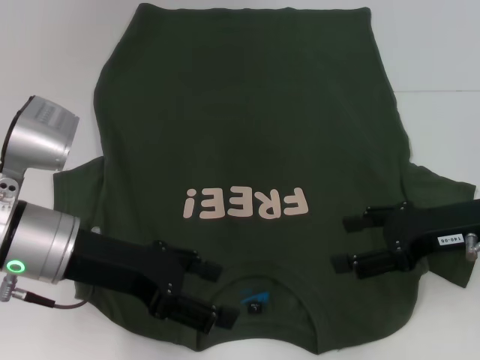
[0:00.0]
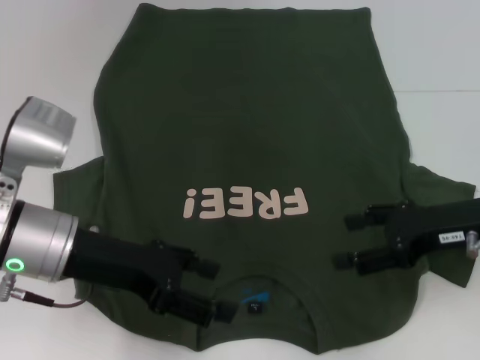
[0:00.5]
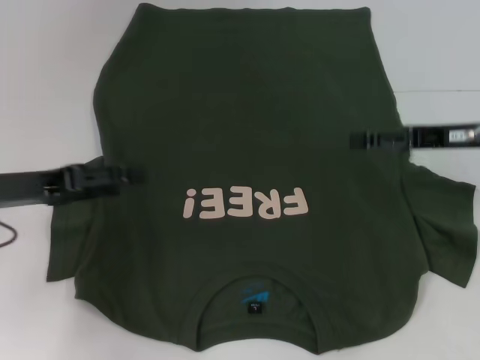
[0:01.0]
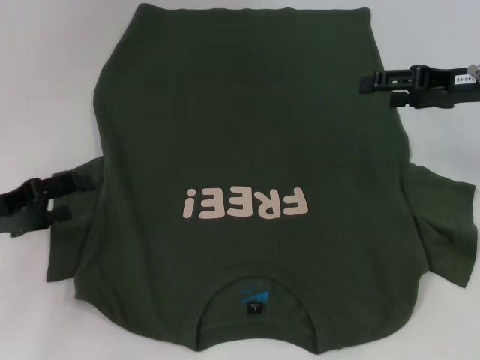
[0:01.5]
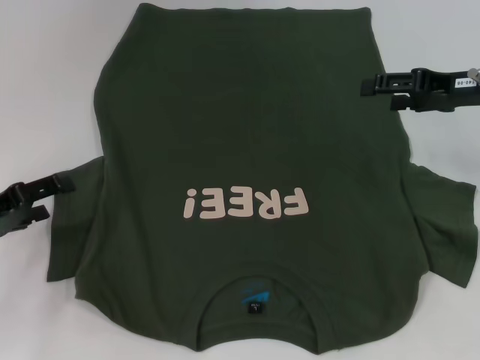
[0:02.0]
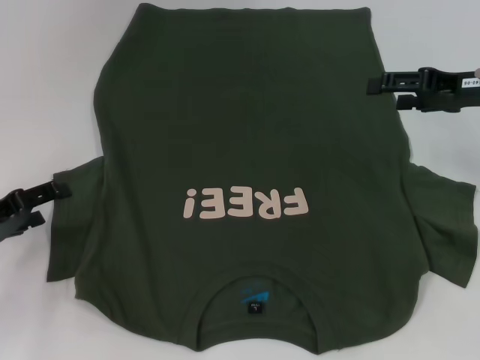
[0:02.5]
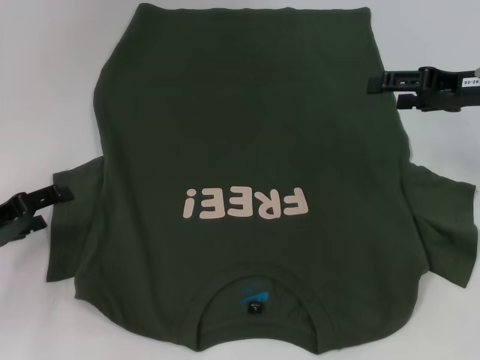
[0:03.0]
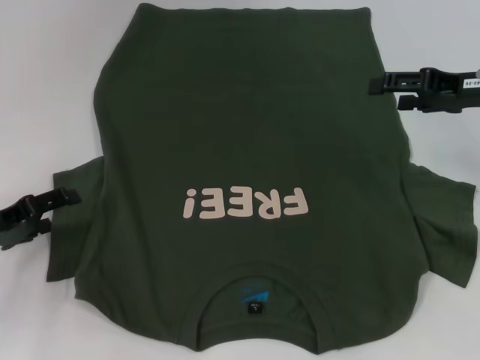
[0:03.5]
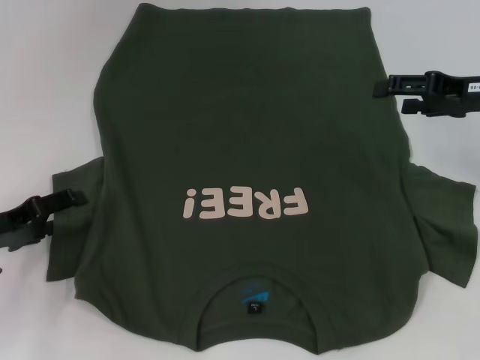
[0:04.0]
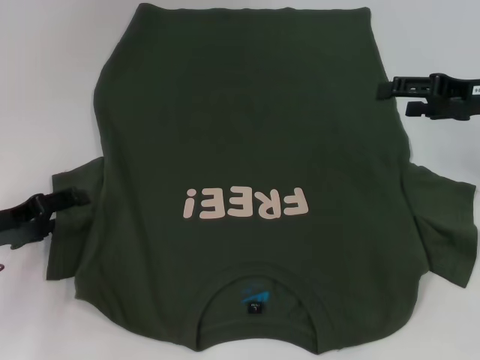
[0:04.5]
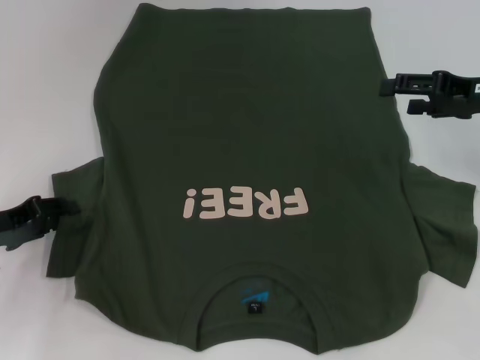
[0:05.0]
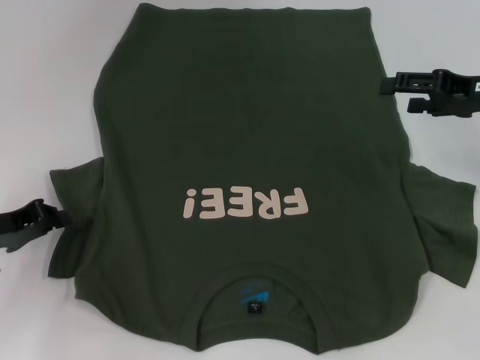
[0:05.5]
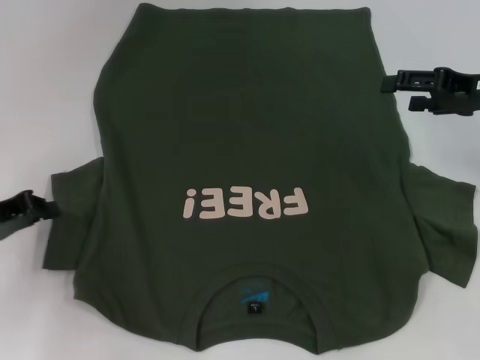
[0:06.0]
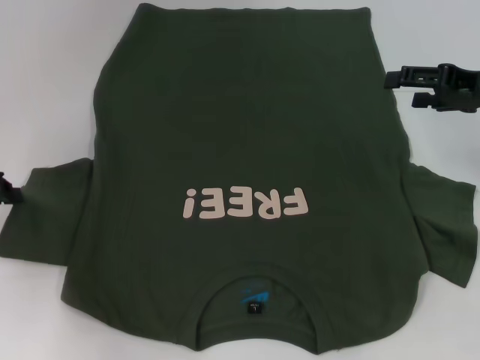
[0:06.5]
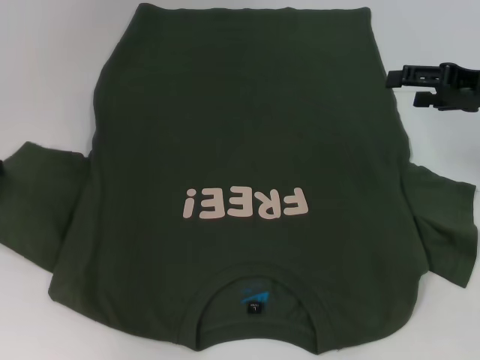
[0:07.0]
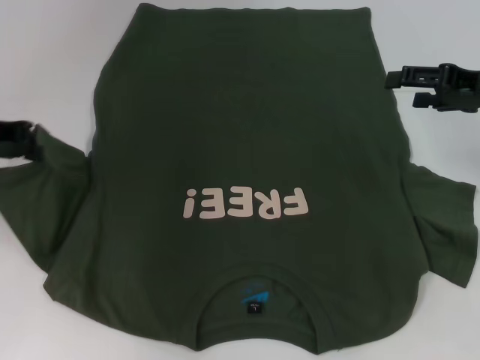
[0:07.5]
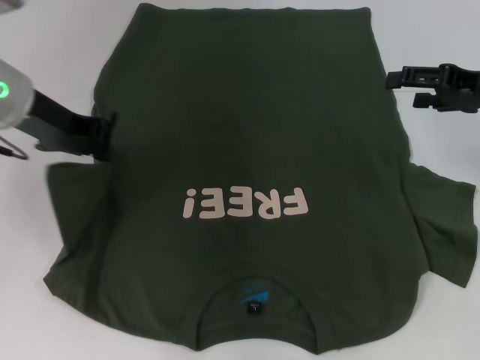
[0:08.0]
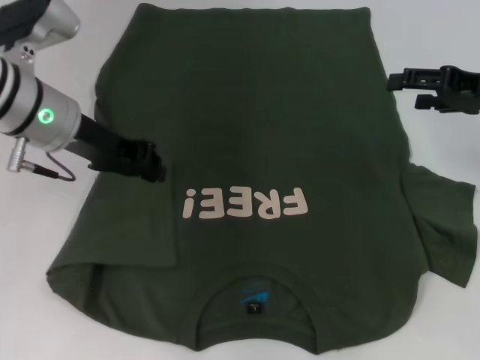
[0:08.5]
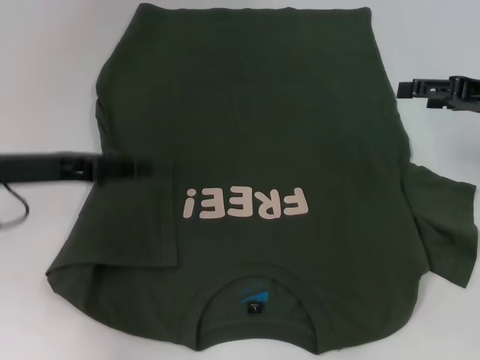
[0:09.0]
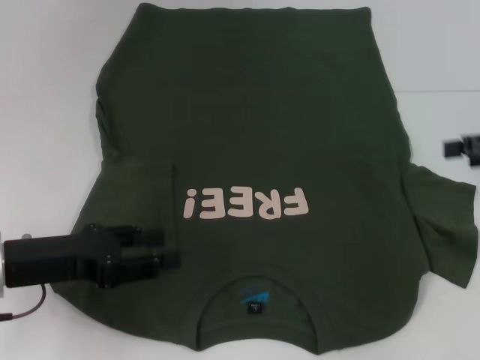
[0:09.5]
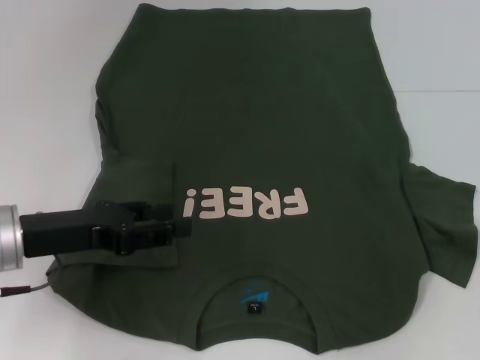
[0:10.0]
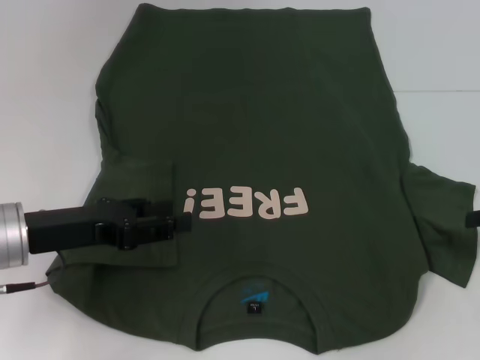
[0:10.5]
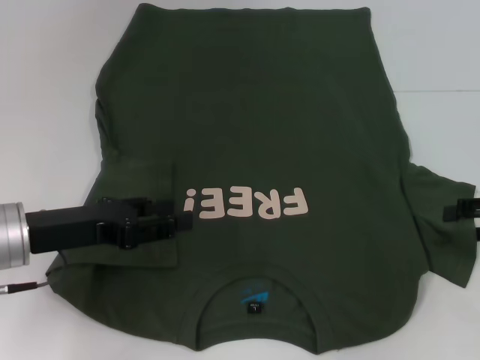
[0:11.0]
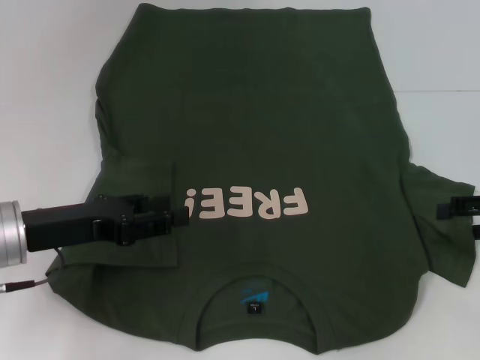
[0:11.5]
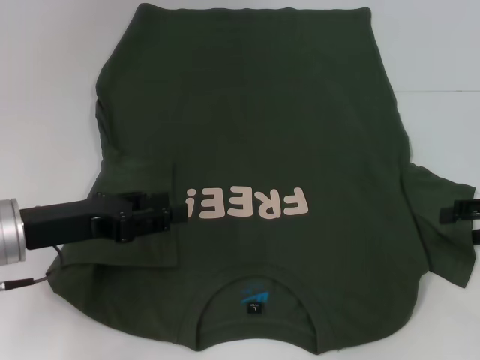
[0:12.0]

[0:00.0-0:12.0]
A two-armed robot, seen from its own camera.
Step, 0:00.0 to 0:08.5: Fold the bottom left sleeve with your left hand.
0:00.0 to 0:02.0: The right gripper shifts approximately 10 cm forward and upward. Meanwhile the left gripper shifts some 15 cm to the left.
0:02.0 to 0:04.0: The grippers stay close to where they were, moving slightly.
0:04.0 to 0:06.0: The left gripper closes its fingers.
0:06.0 to 0:08.0: The left gripper goes roughly 20 cm upward, to the right and forward.
0:08.0 to 0:10.0: The right gripper is displaced to the right and backward by roughly 10 cm, while the left gripper moves backward and downward, approximately 15 cm, and opens.
0:10.0 to 0:12.0: The right gripper changes place by about 5 cm.

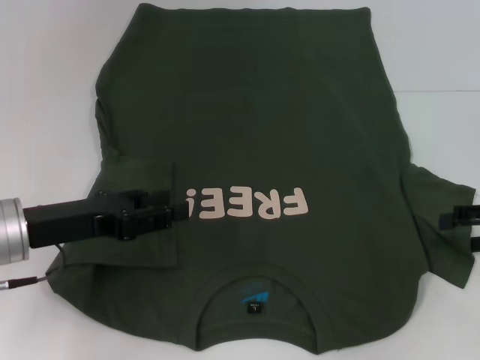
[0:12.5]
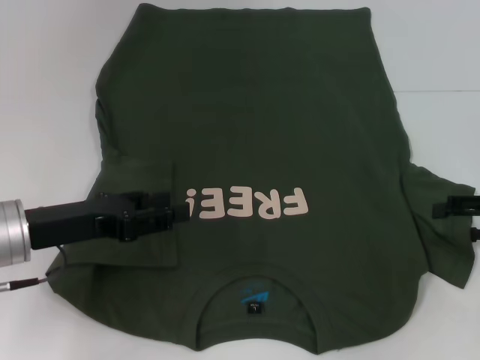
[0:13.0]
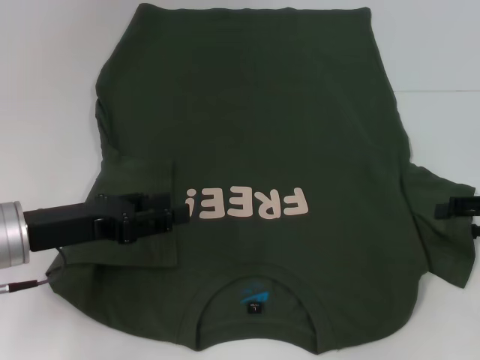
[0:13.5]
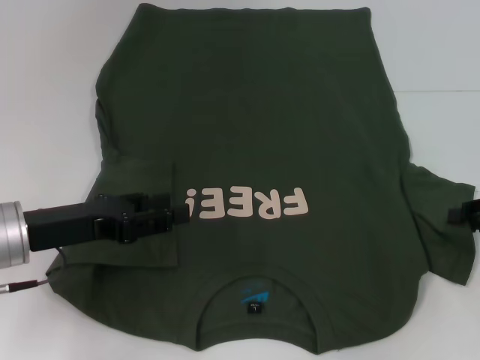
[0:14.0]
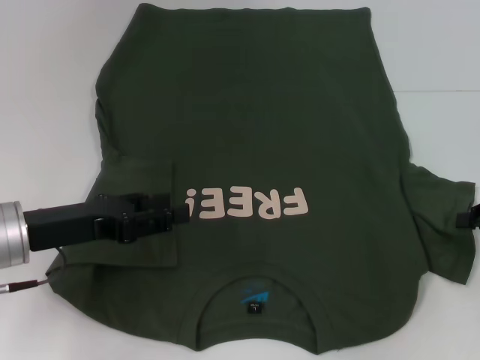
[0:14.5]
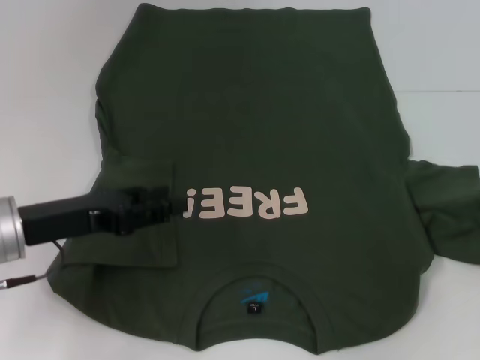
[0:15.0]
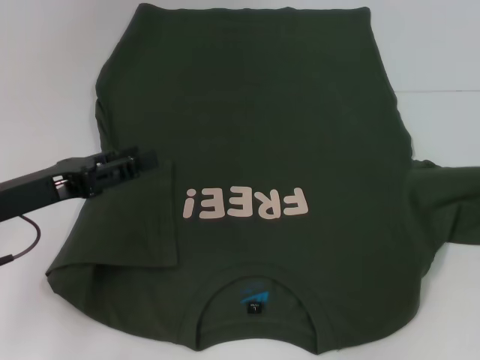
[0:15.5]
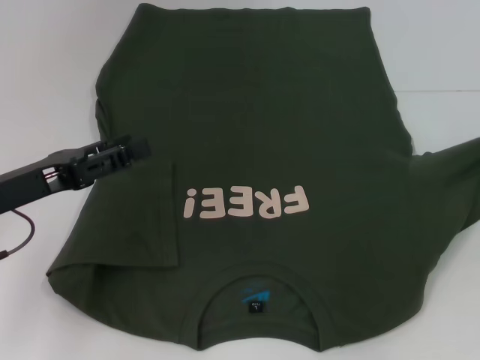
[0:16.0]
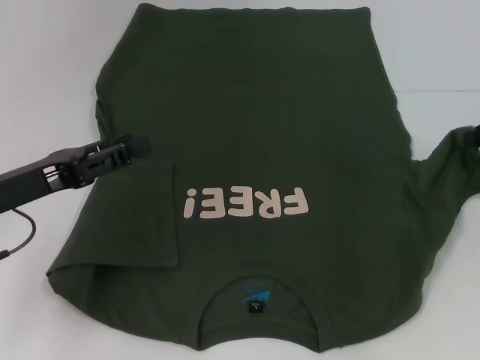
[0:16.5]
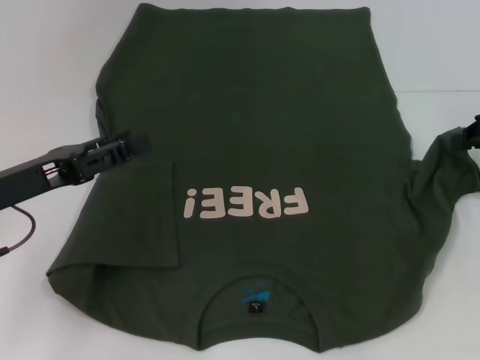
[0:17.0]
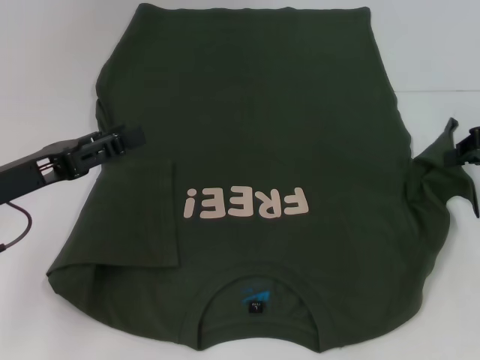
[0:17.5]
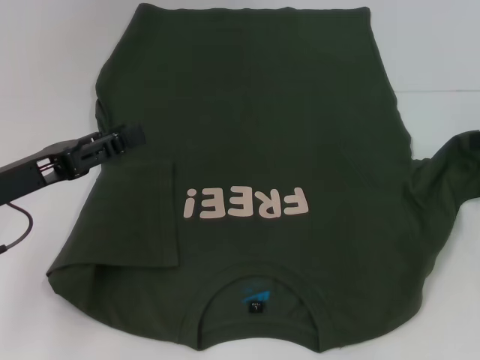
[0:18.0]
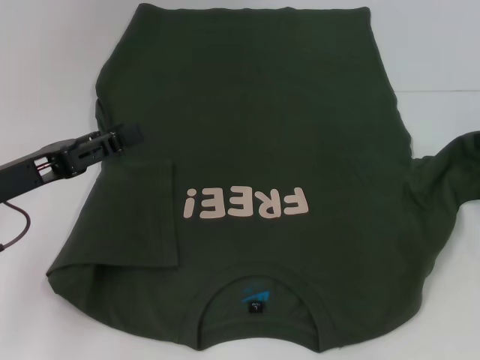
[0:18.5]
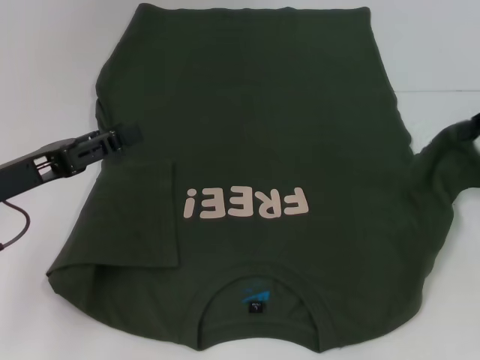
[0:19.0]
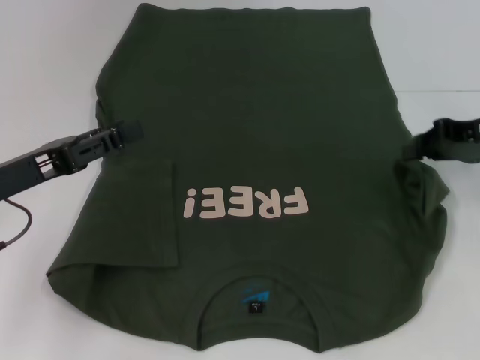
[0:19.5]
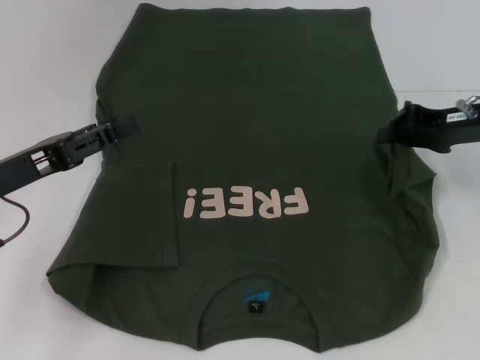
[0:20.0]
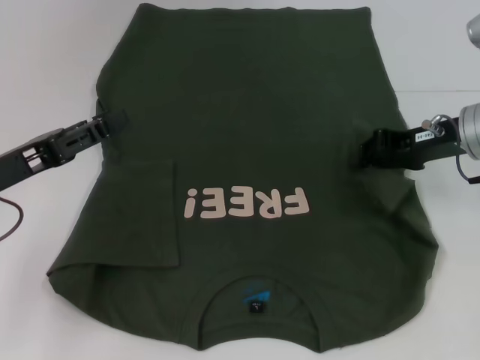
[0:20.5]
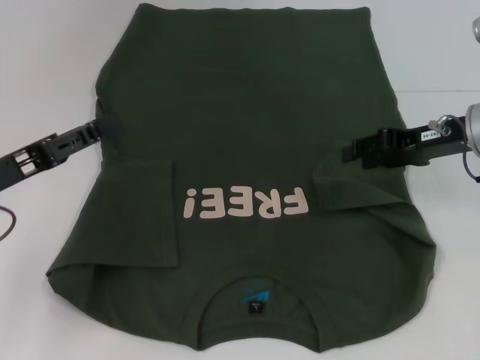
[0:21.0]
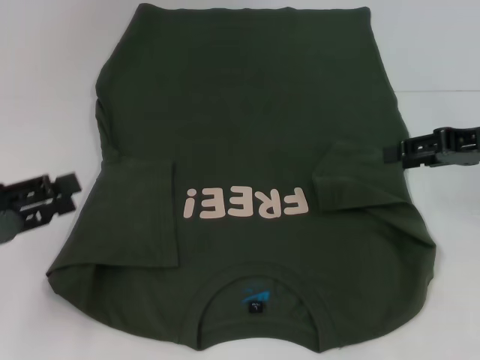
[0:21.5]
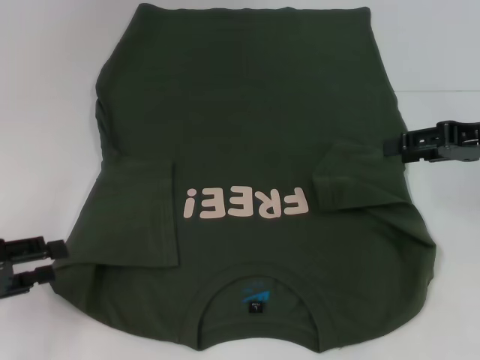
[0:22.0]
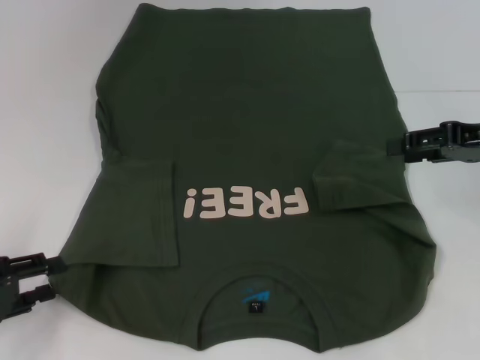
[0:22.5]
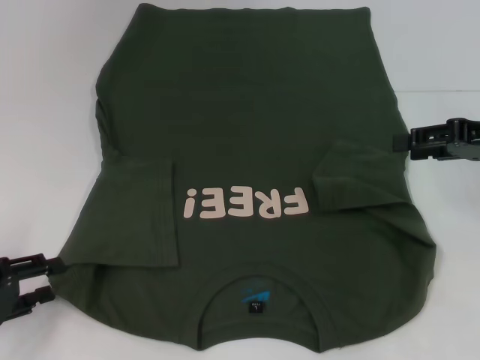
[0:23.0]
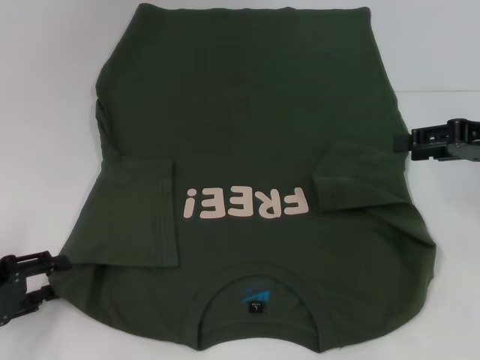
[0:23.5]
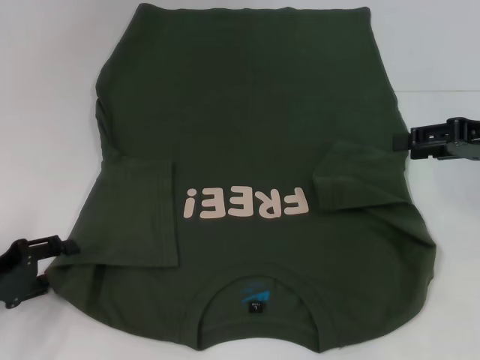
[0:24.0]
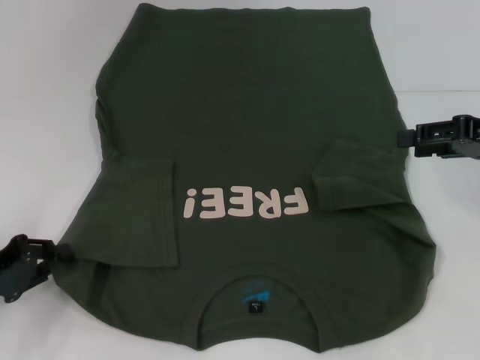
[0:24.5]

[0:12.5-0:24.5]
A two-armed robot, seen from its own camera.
Step, 0:12.5 to 0:21.5: Fold the bottom right sleeve with your right hand.
0:14.5 to 0:16.5: The right gripper goes approximately 10 cm forward and upward.
0:16.5 to 0:18.5: There are only small adjustments of the grippers.
0:18.5 to 0:20.5: The right gripper shifts roughly 10 cm to the left.
0:20.5 to 0:22.5: The right gripper moves to the right, approximately 5 cm, and opens up. The left gripper is displaced downward, to the left and backward by roughly 10 cm.
0:22.5 to 0:24.5: The grippers stay close to where they were, moving slightly.

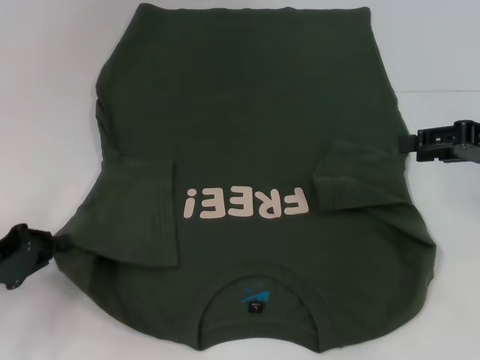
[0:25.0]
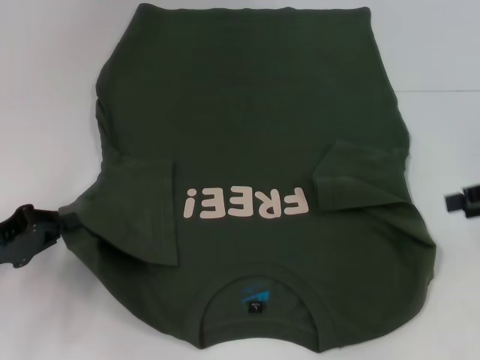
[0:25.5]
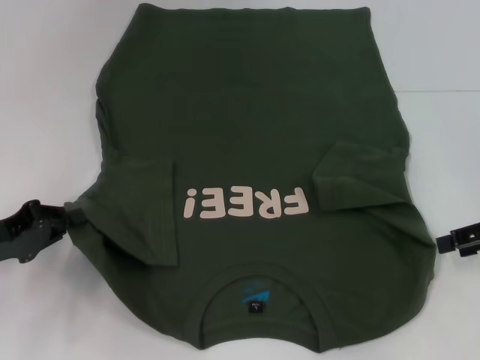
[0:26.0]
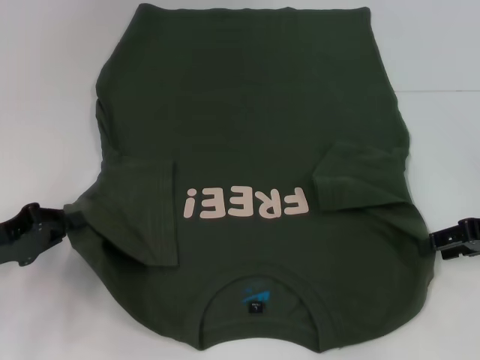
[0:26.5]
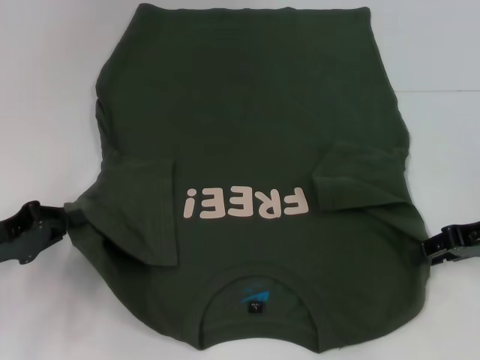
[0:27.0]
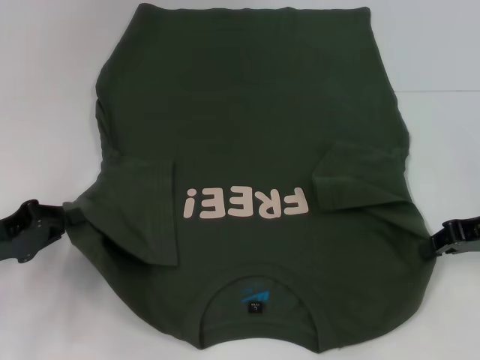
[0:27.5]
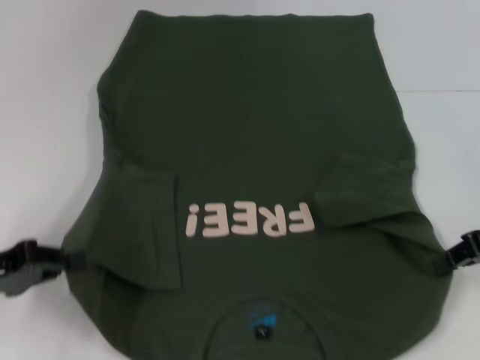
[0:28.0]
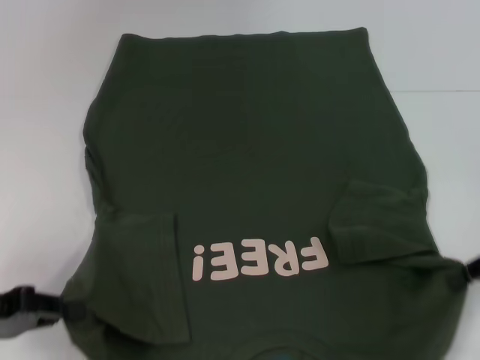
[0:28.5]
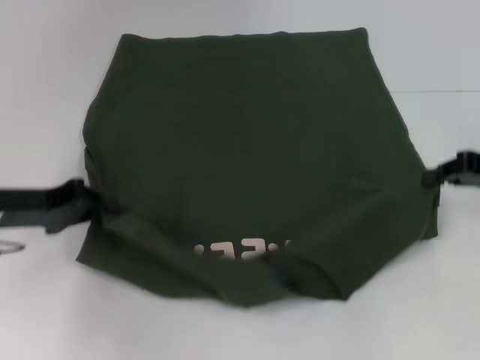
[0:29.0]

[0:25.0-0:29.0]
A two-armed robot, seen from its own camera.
Step, 0:25.5 to 0:27.5: Grab the bottom right corner with your right hand.
0:25.0 to 0:27.0: The right gripper heads downward, covering roughly 5 cm.
0:27.0 to 0:29.0: The right gripper closes up; the left gripper is displaced forward by about 5 cm.
